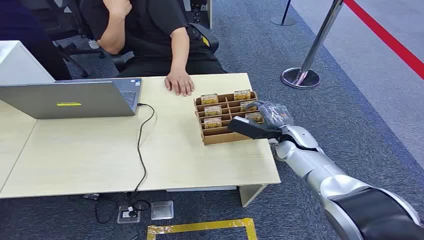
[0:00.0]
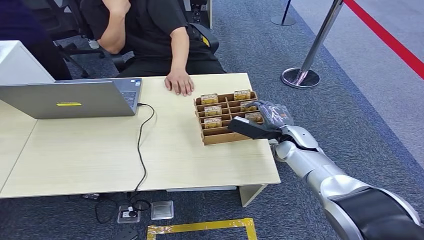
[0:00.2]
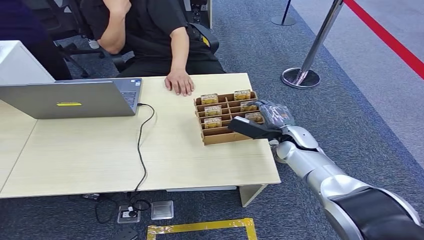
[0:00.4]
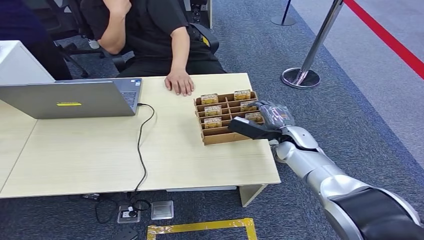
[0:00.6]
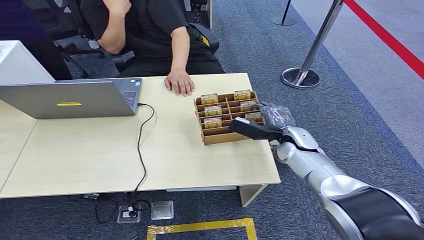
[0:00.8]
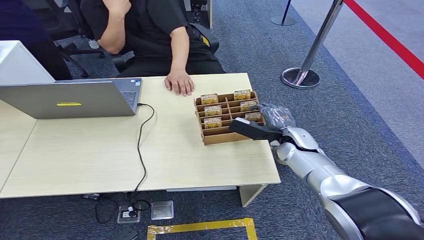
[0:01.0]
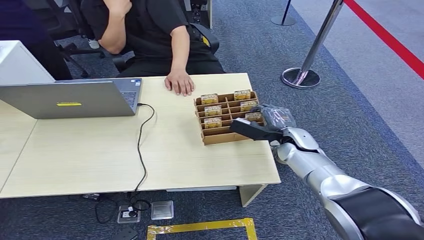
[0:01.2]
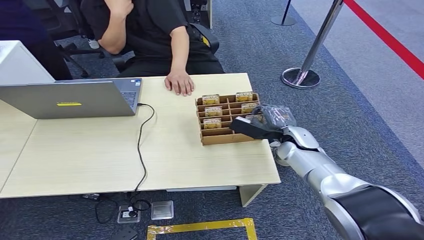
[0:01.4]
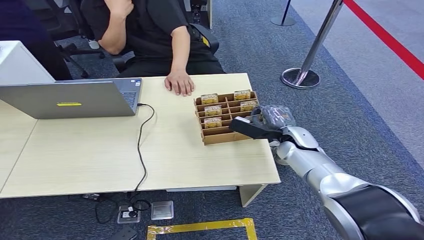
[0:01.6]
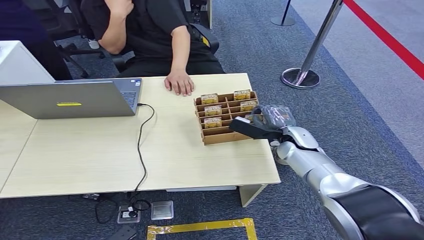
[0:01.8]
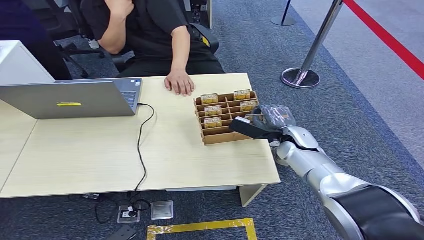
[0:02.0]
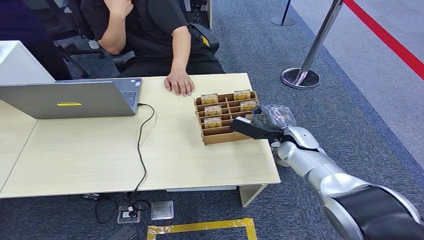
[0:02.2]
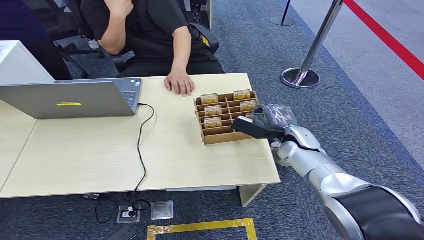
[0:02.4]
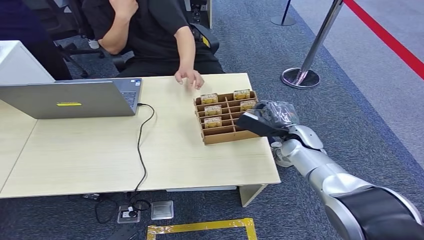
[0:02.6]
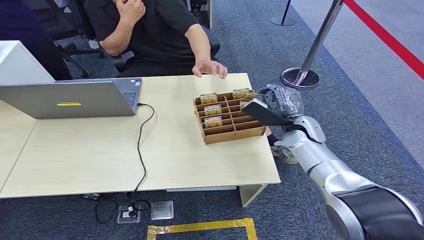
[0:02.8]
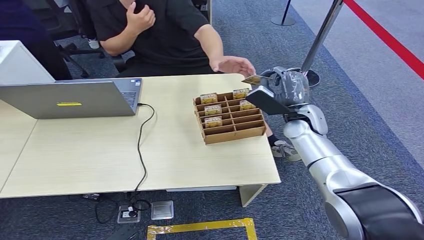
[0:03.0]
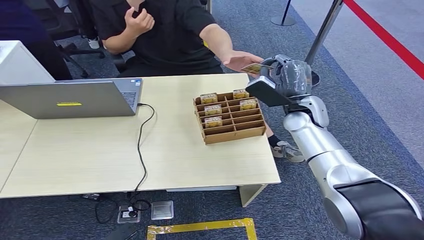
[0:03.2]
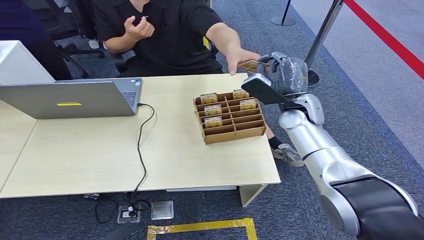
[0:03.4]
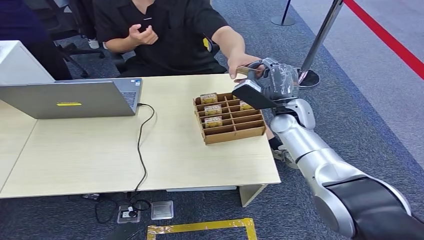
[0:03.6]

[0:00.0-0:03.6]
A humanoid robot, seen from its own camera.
Step, 0:00.0 to 0:02.6: Pick up the key card from the card box.
Step, 0:03.0 to 0:03.6: Hand the key card to the target.
0:01.8 to 0:03.6: The right hand travels upward by about 10 cm.
